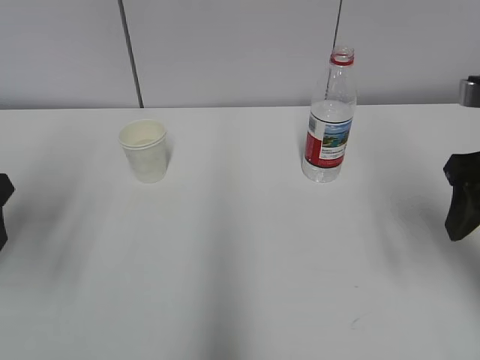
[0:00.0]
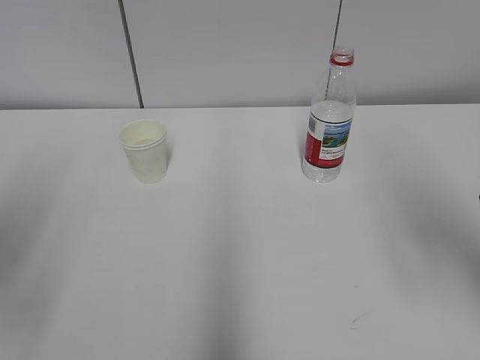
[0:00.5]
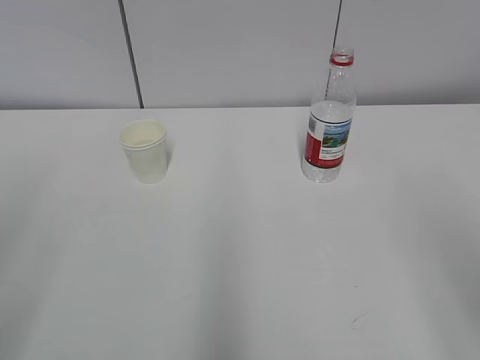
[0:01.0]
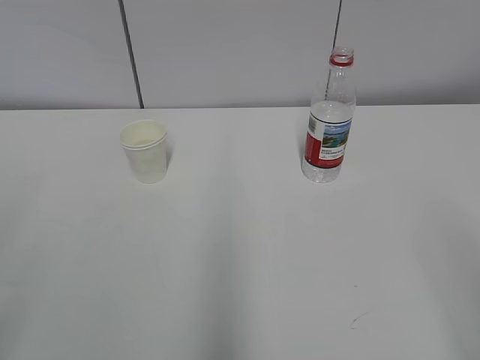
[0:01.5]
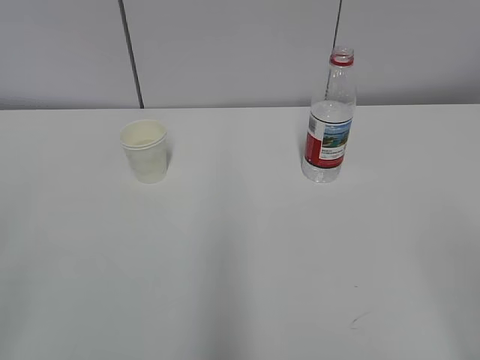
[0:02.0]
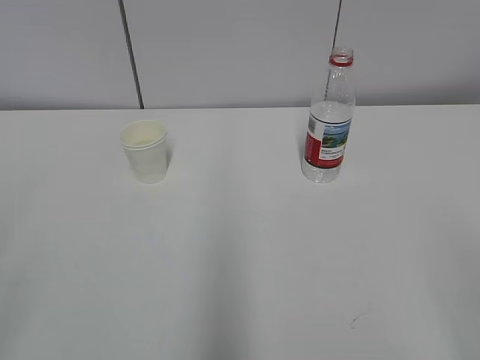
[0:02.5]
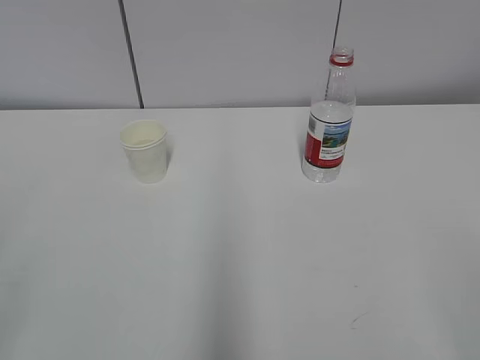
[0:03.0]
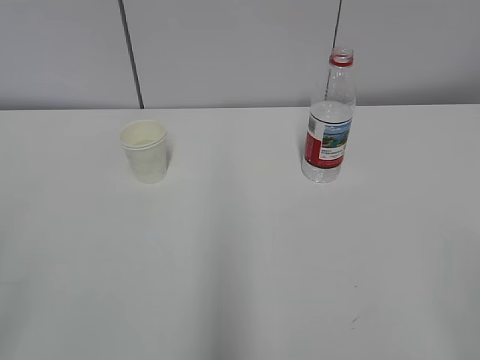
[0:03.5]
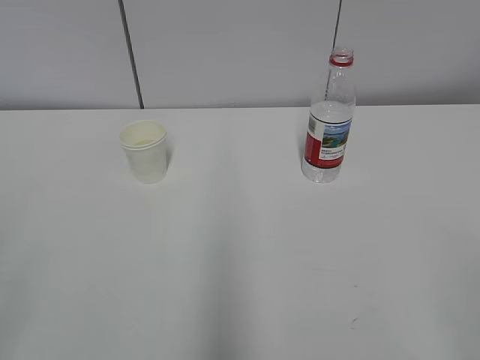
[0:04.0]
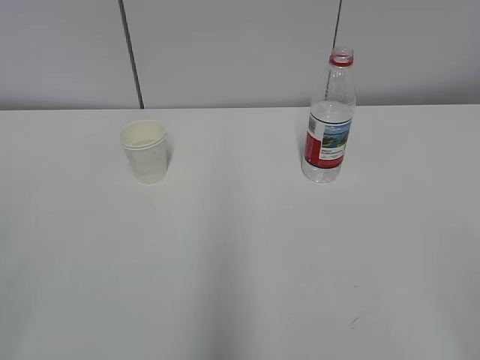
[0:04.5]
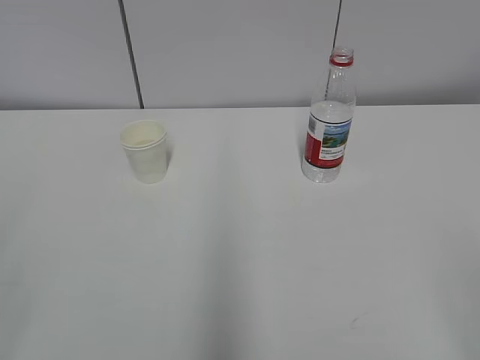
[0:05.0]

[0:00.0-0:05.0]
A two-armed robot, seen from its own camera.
0:00.0 to 0:02.5: Both grippers move backward, approximately 25 cm.

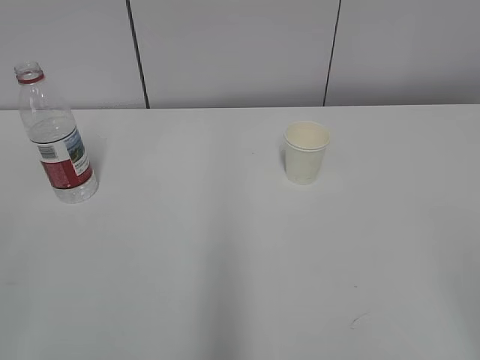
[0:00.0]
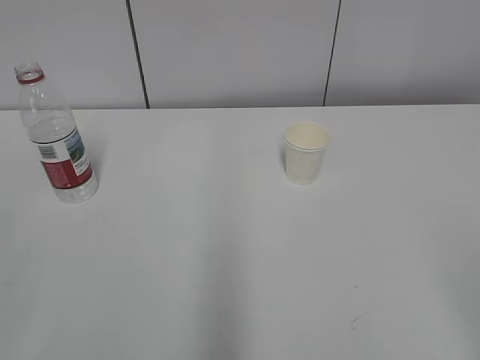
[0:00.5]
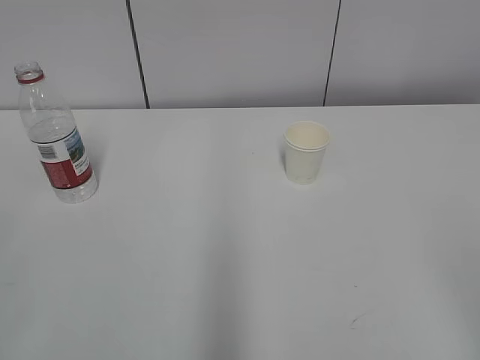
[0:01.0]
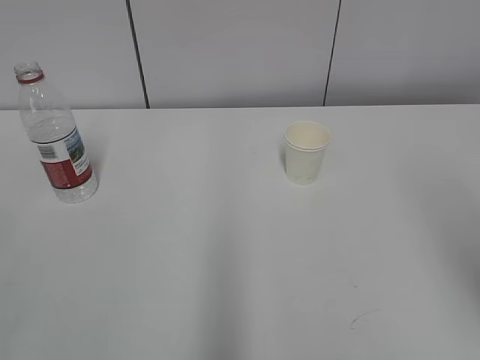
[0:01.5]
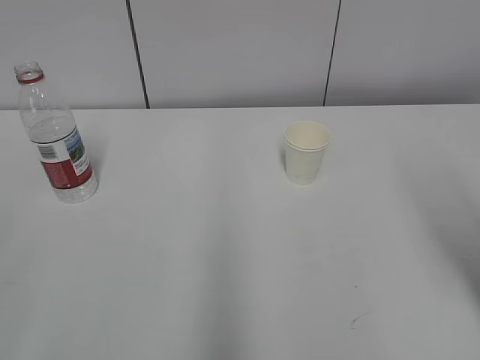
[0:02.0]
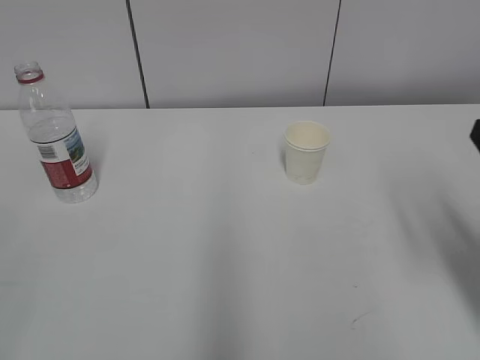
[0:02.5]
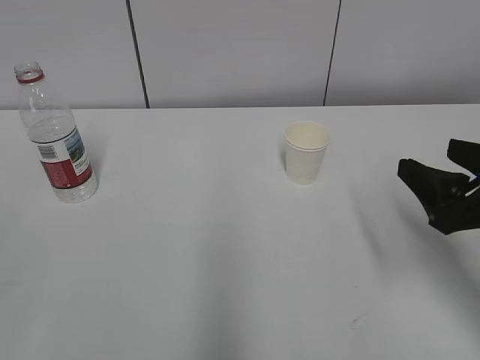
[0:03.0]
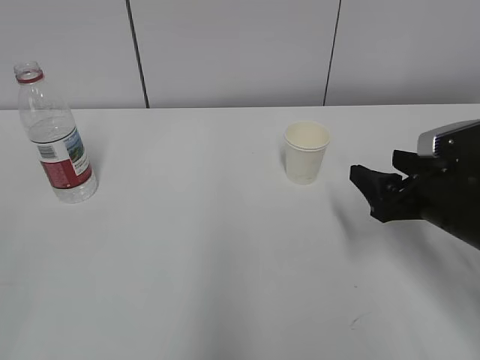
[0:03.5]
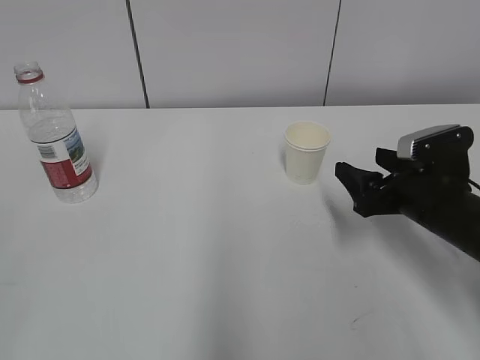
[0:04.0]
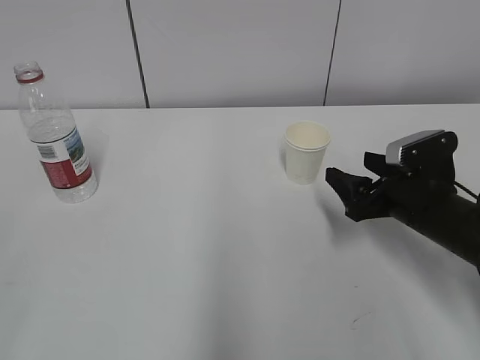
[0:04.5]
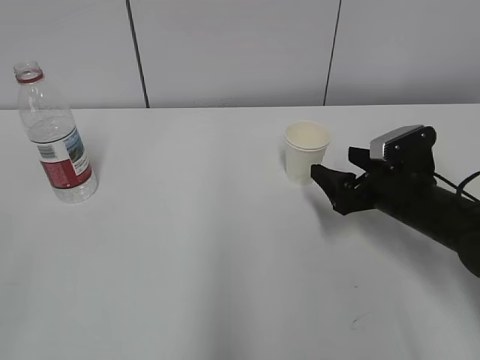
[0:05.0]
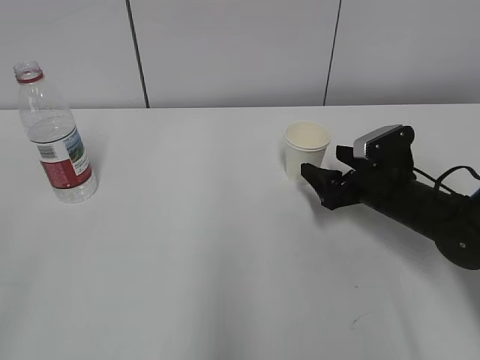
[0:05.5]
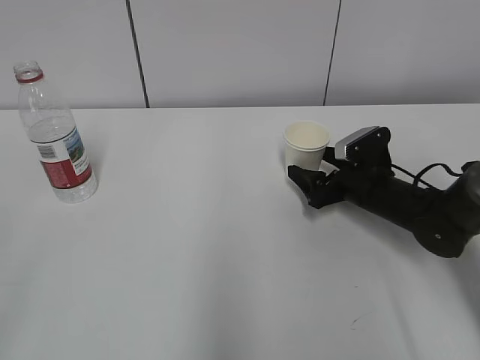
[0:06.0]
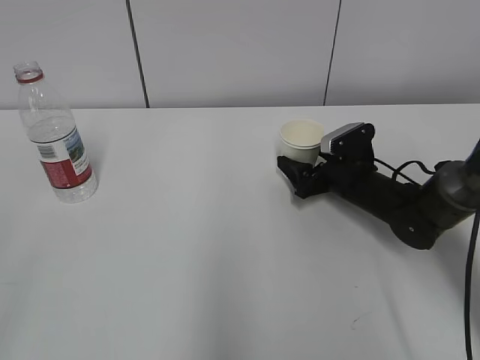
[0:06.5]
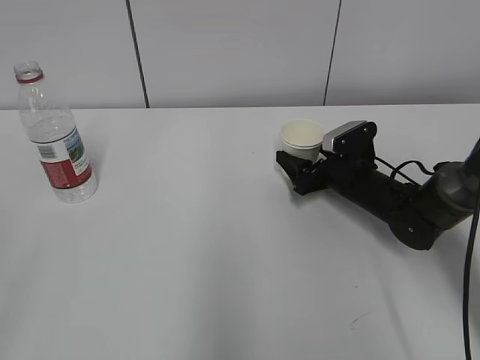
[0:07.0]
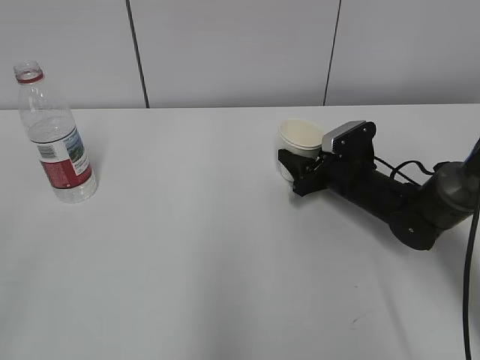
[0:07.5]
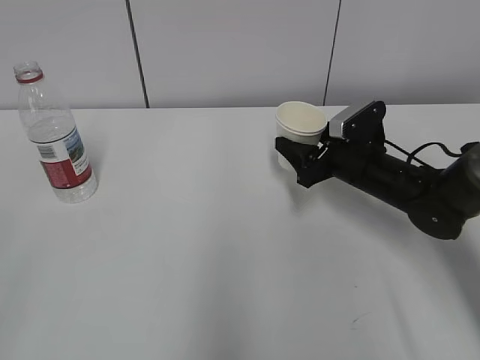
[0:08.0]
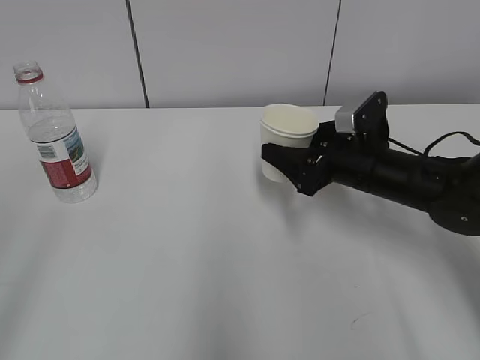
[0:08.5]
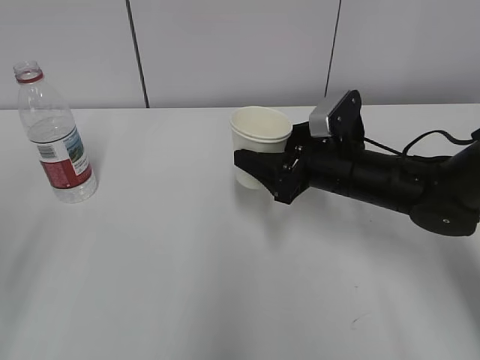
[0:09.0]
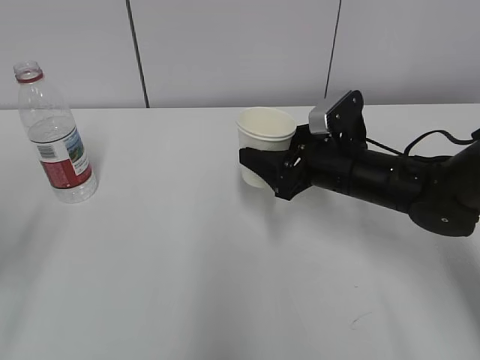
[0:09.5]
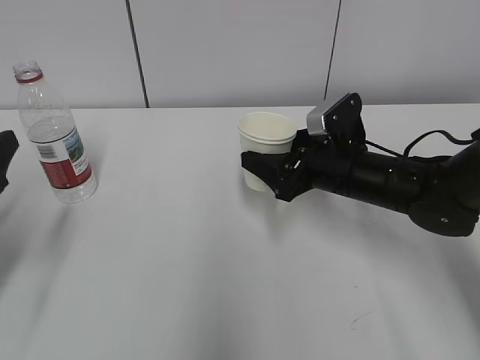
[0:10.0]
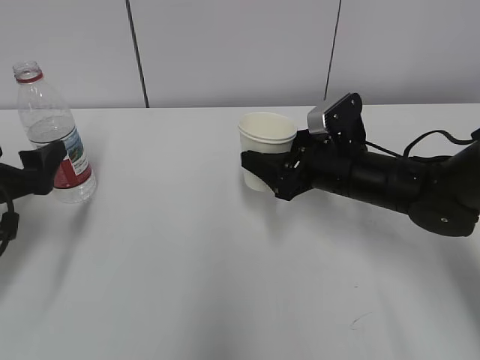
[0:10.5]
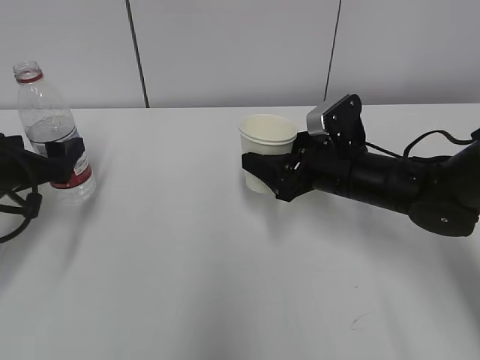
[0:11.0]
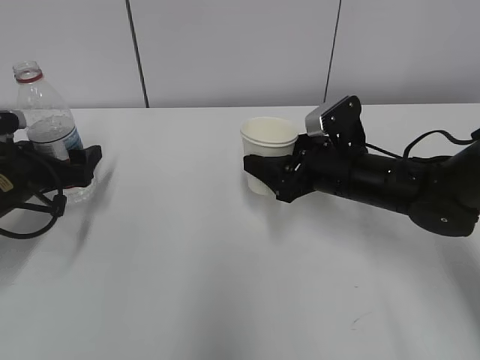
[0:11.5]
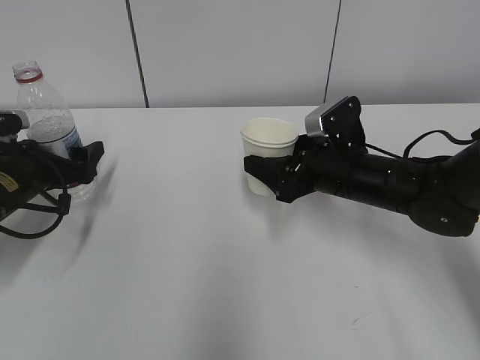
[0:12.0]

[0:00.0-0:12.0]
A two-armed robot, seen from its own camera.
Step, 0:00.0 to 0:06.0: Grab the paper cup with the right hand.
Step, 0:06.5 to 0:10.5: Grab the water bottle with the left hand.
0:02.0 to 0:04.0: The right gripper goes roughly 20 cm forward and downward.
0:04.0 to 0:06.0: The left gripper opens up; the right gripper travels forward and downward by roughly 10 cm, and opens its fingers.
0:06.0 to 0:08.0: The right gripper closes its fingers.
0:08.0 to 0:10.0: The left gripper heads forward and downward, covering roughly 25 cm; the right gripper shifts by roughly 5 cm.
0:10.0 to 0:12.0: The left gripper shifts approximately 15 cm forward and downward.

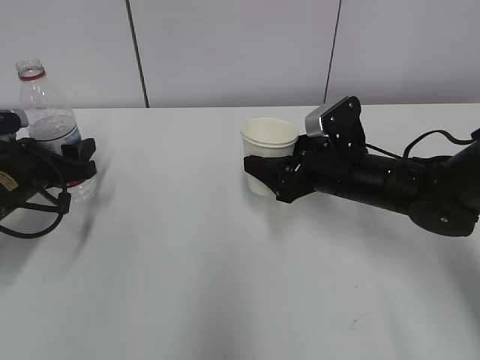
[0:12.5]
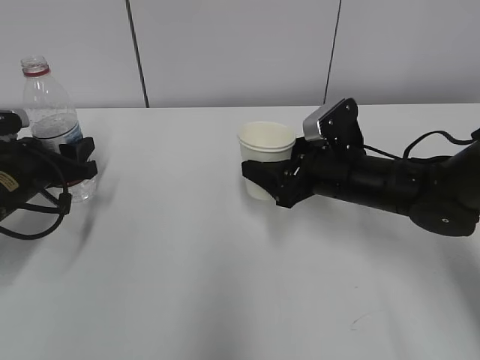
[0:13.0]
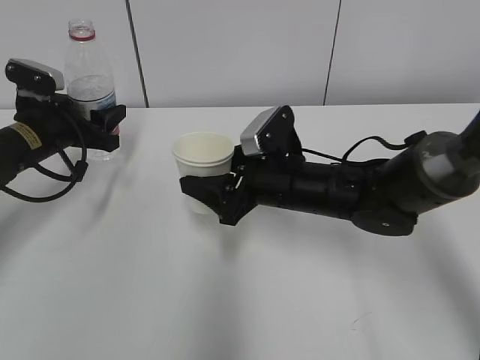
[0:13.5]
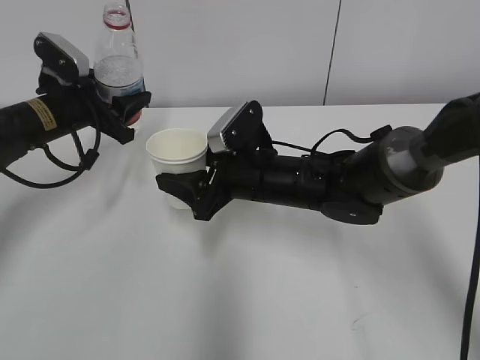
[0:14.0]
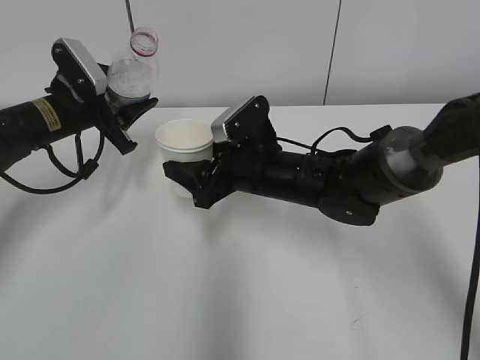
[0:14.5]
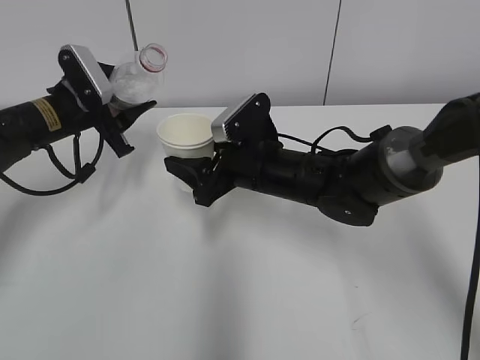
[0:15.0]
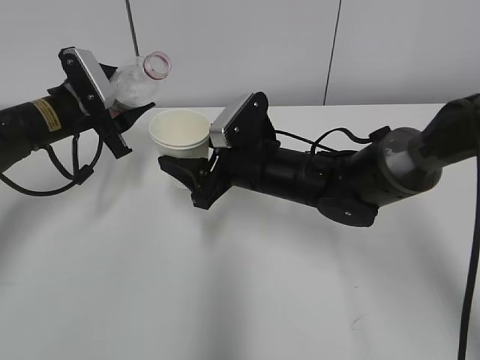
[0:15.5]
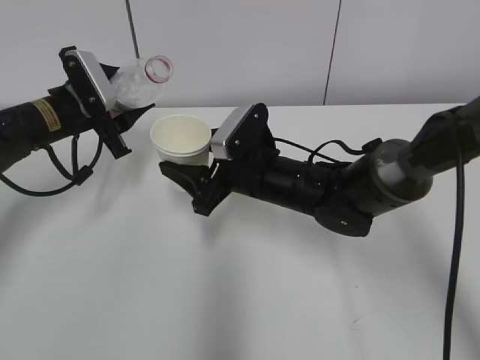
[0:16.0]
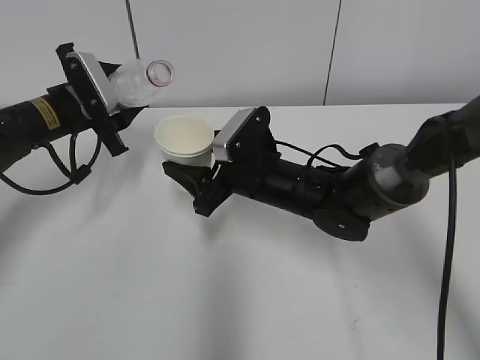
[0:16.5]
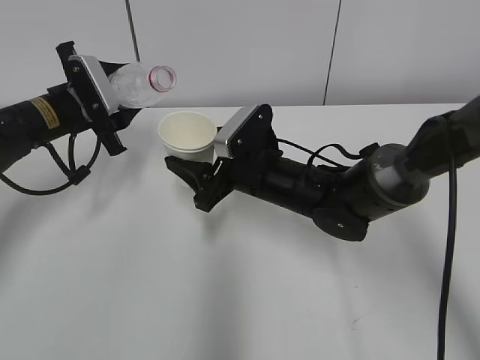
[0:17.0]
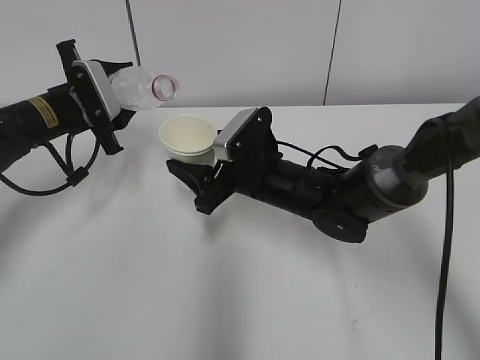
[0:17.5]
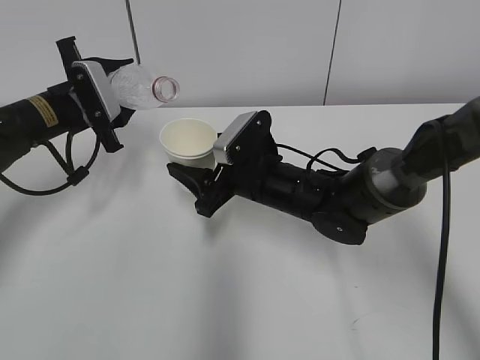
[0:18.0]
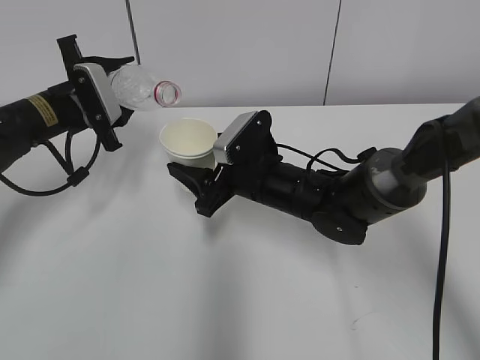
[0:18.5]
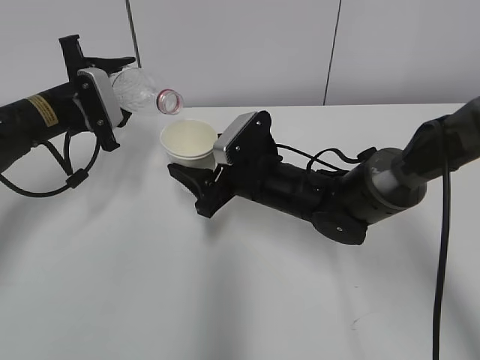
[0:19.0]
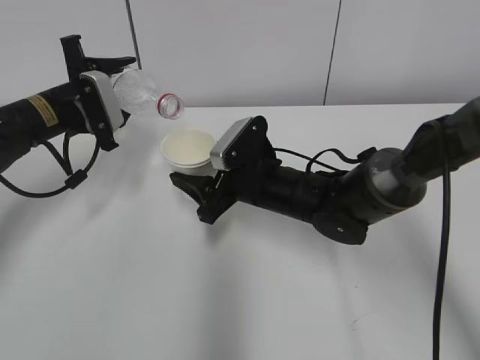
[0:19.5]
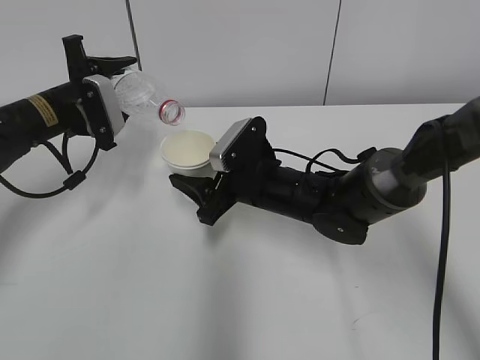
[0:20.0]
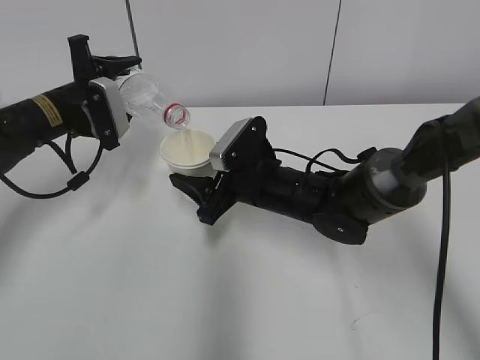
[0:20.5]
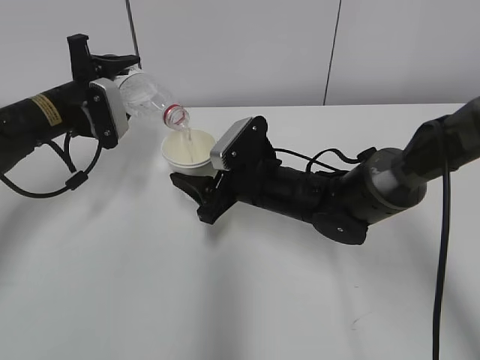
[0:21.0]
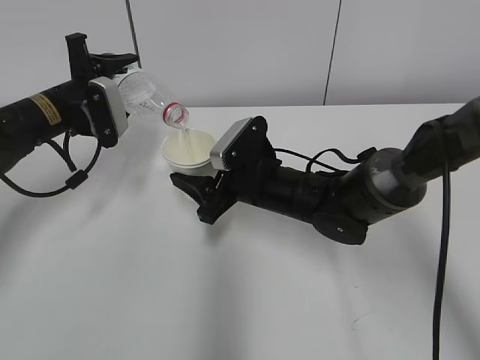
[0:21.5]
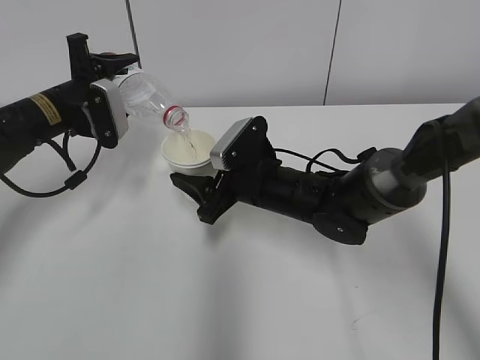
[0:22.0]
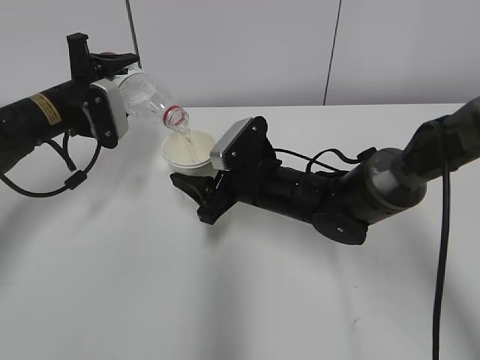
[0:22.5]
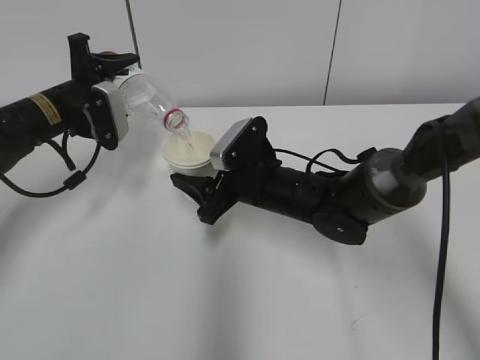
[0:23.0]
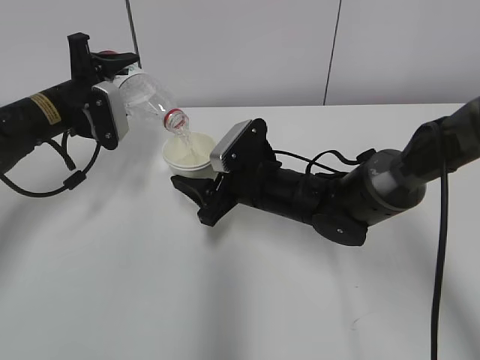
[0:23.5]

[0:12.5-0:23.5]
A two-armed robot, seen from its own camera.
Step, 0:12.5 to 0:16.5: Lift the paper cup with the right hand.
Step, 0:17.0 to 0:20.0: Fill water with the right hand.
Step, 0:17.0 to 0:20.0: Pour water with the left hand.
Step, 0:20.5 to 0:21.0: Collect water with the left hand.
0:12.5 to 0:14.5: The right gripper is displaced to the left by roughly 10 cm. Meanwhile the left gripper goes roughly 10 cm forward, upward and to the right.
0:14.5 to 0:16.0: The grippers make only small movements.
0:16.0 to 0:18.0: There are only small adjustments of the grippers.
0:18.0 to 0:20.0: There are only small adjustments of the grippers.
0:20.0 to 0:21.5: The two grippers keep their place.
0:21.5 to 0:23.5: Both grippers stay put.
